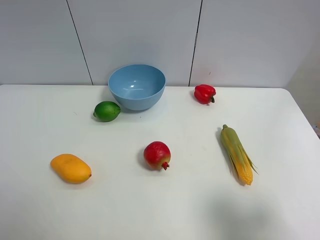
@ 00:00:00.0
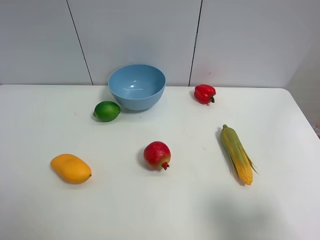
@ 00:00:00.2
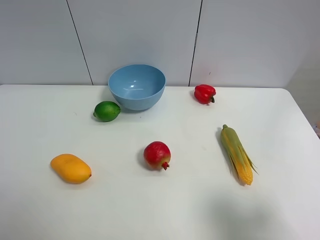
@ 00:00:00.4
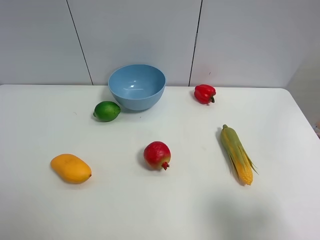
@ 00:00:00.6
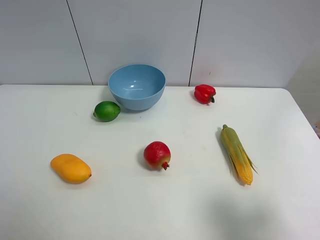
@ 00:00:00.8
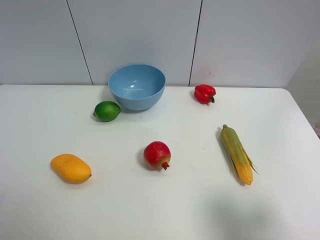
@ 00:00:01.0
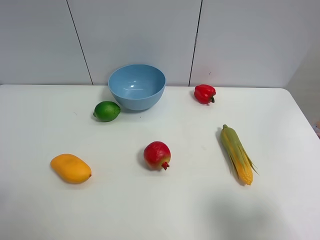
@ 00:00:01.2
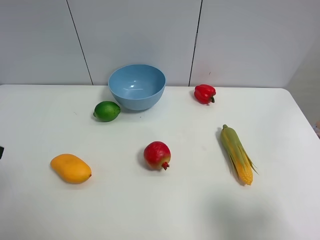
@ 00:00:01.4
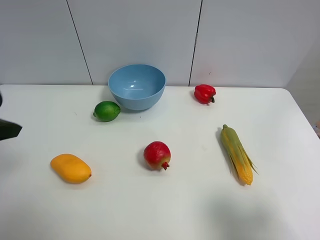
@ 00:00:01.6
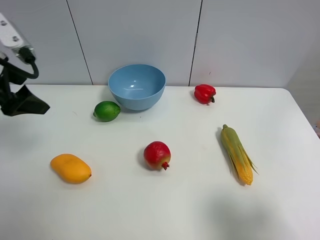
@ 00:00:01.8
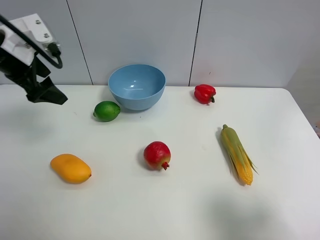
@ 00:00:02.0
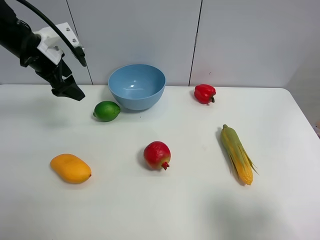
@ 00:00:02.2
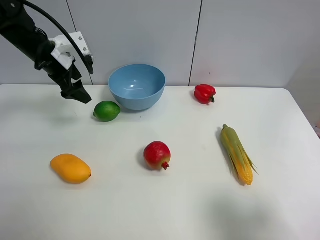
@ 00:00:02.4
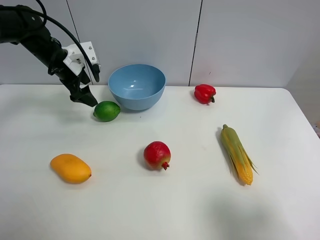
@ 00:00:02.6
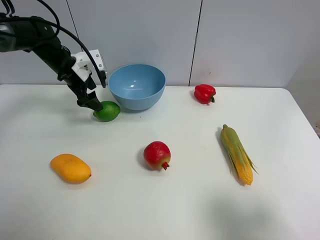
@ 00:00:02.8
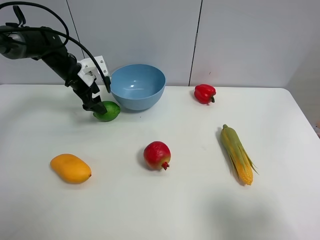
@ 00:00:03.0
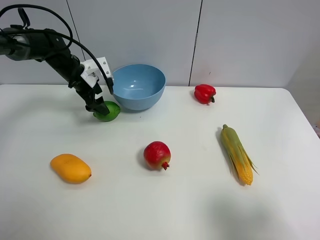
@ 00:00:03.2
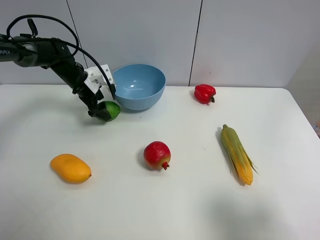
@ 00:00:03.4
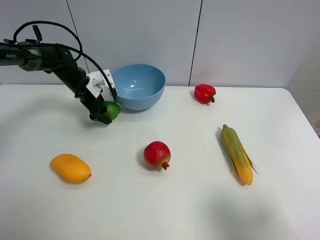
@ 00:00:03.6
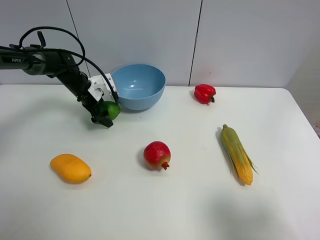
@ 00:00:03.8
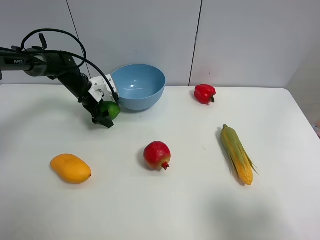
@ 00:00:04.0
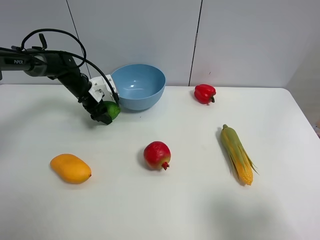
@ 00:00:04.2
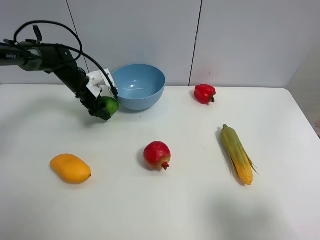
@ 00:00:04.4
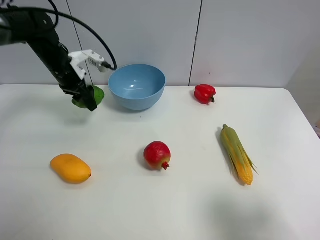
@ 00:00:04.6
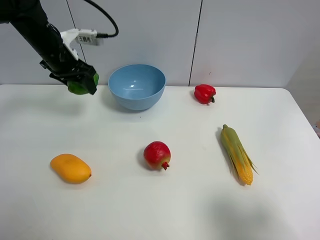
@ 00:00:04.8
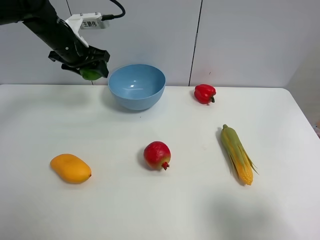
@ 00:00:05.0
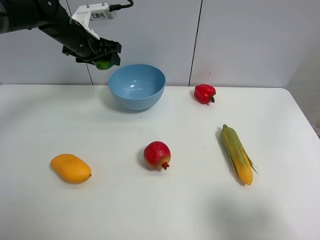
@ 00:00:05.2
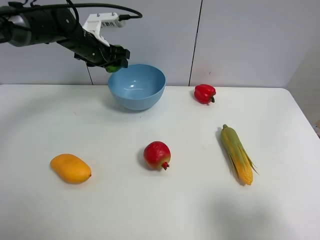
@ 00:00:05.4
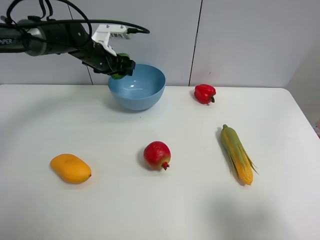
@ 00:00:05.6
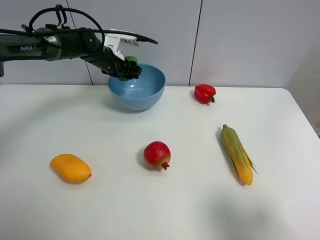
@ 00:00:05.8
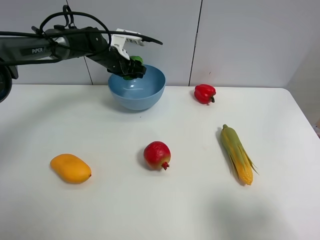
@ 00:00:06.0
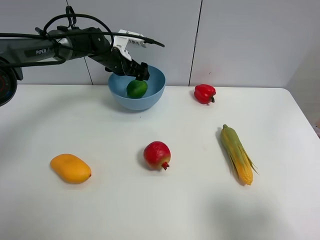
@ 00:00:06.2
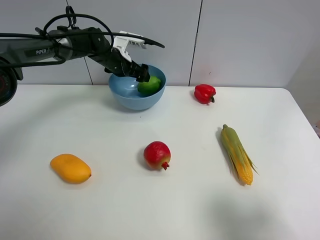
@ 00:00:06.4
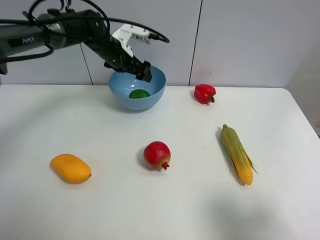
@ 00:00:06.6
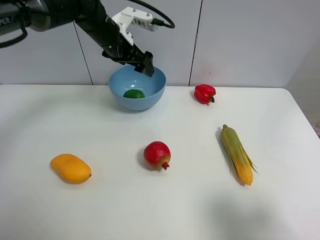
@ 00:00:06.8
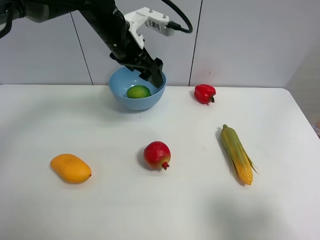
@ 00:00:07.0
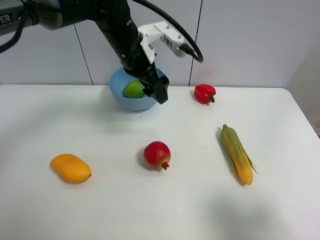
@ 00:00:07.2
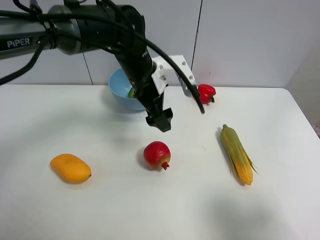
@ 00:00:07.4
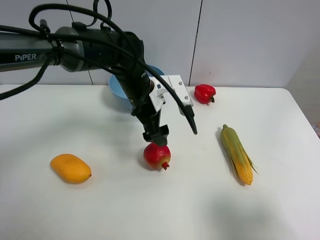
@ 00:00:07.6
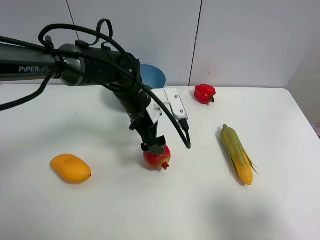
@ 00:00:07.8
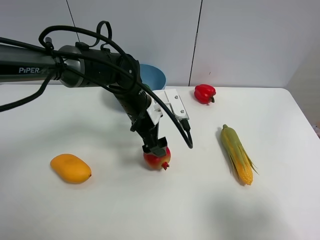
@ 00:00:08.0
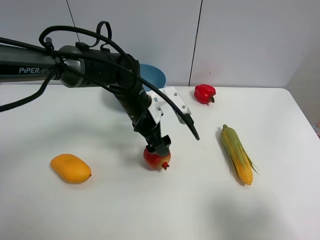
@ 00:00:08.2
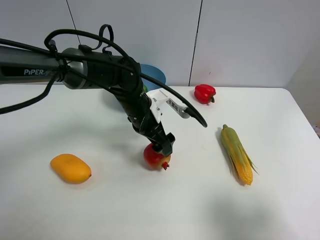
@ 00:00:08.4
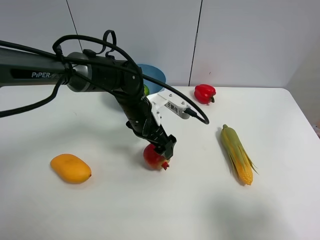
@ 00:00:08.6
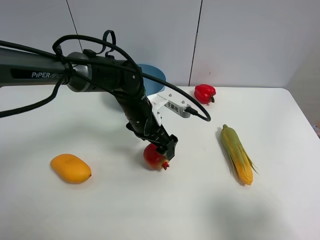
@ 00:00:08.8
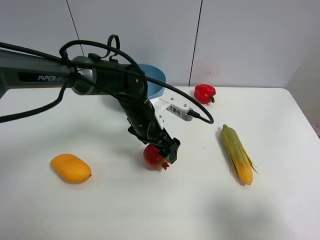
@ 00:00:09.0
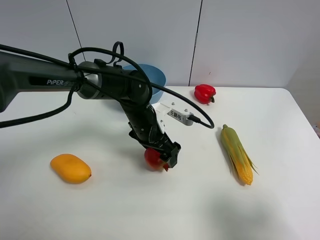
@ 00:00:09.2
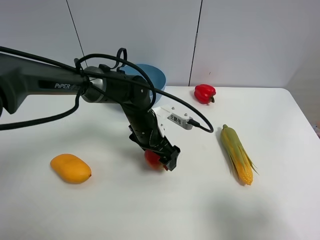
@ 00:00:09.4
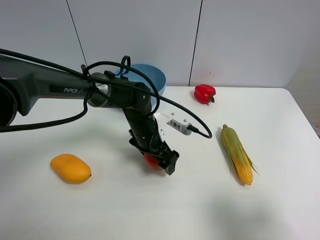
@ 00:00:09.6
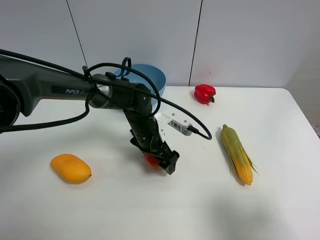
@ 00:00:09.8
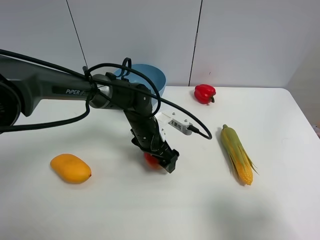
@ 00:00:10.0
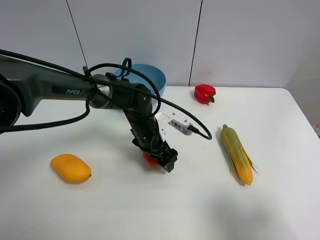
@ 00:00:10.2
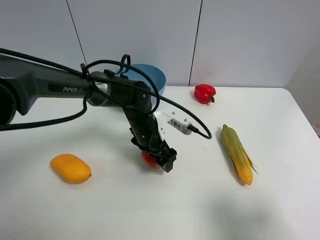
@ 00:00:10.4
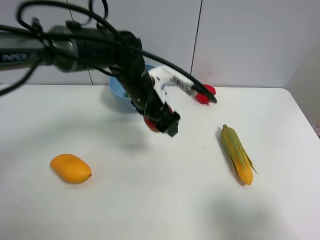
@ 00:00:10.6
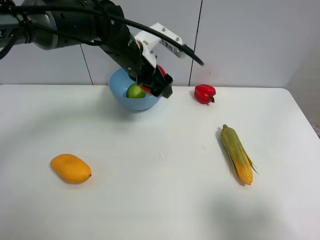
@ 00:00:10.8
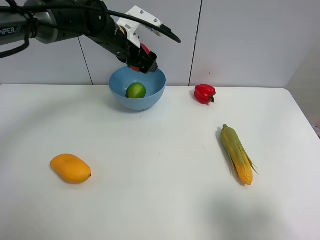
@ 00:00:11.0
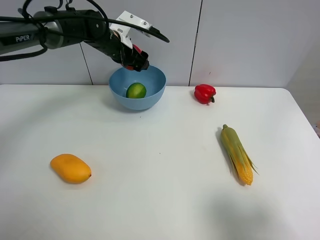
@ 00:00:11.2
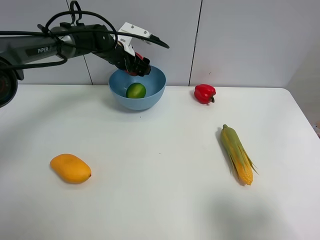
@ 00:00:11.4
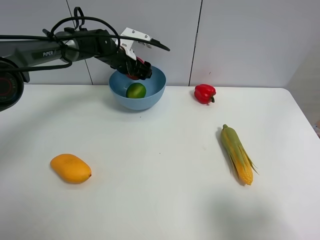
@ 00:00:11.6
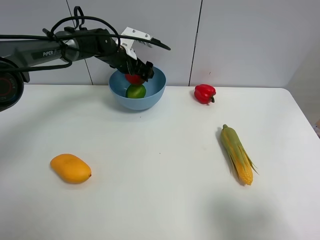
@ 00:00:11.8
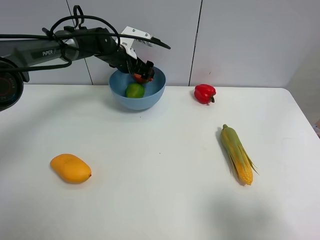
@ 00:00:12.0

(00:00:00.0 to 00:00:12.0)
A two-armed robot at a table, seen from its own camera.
Task of the whole recording: Put the three fruits on the table into a bowl.
Step, 00:00:00.0 - 00:00:04.2: Grasp the green lemon with left gripper.
Step, 00:00:04.4 - 00:00:06.2: Place the green lemon in the blue bowl with left gripper.
Step, 00:00:06.4 - 00:00:10.2: Grasp the pomegranate with left gripper.
00:00:00.0 - 00:00:01.6: The left gripper heads forward, covering some 20 cm.
00:00:01.6 - 00:00:03.0: The left gripper travels forward and downward by approximately 30 cm.
00:00:03.0 - 00:00:04.4: The left gripper closes up.
00:00:04.4 - 00:00:06.0: The left gripper heads to the right and upward, covering approximately 10 cm.
00:00:06.0 - 00:00:07.6: The left gripper moves backward and to the right, approximately 20 cm, and opens up.
00:00:07.6 - 00:00:09.0: The left gripper shifts some 5 cm downward.
00:00:09.0 - 00:00:10.4: The left gripper closes its fingers.
00:00:10.4 - 00:00:12.0: The left gripper moves forward and to the left, some 20 cm, and opens.

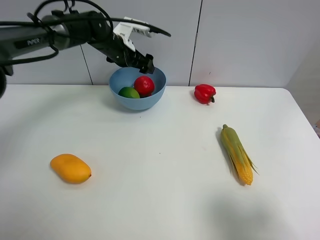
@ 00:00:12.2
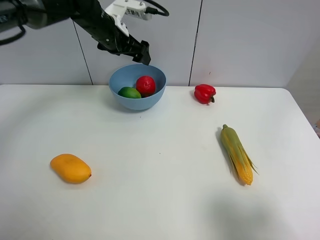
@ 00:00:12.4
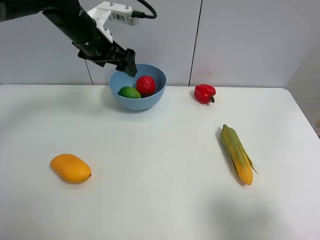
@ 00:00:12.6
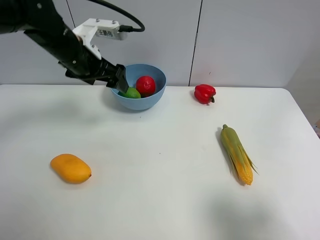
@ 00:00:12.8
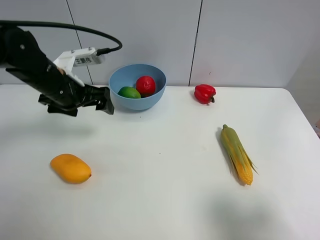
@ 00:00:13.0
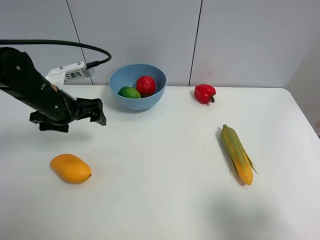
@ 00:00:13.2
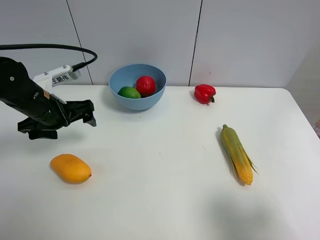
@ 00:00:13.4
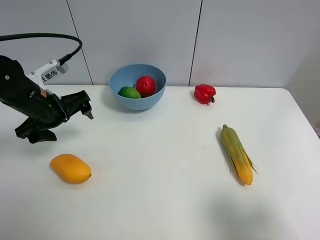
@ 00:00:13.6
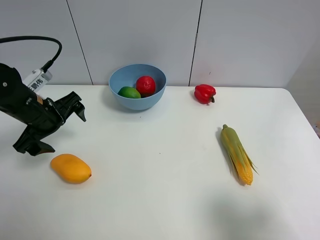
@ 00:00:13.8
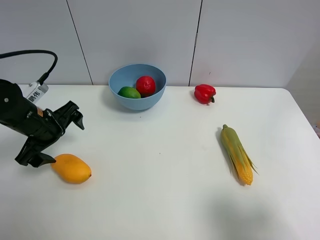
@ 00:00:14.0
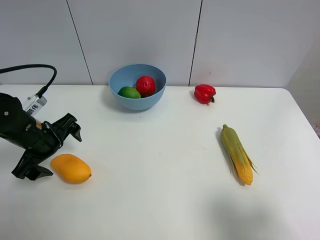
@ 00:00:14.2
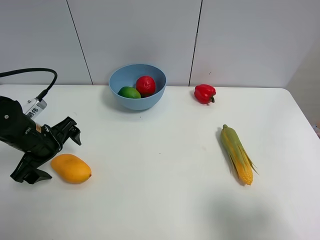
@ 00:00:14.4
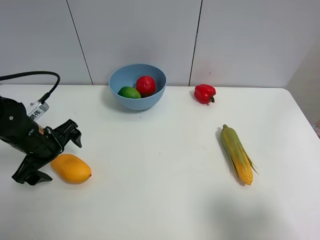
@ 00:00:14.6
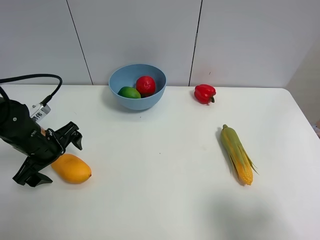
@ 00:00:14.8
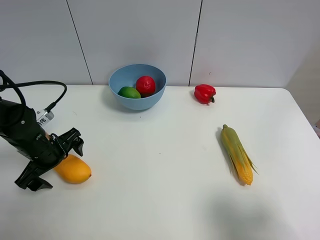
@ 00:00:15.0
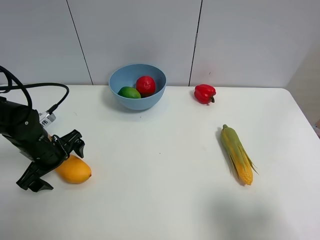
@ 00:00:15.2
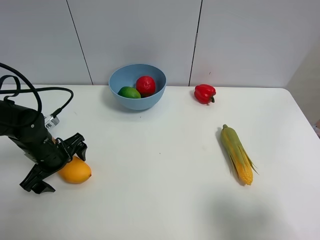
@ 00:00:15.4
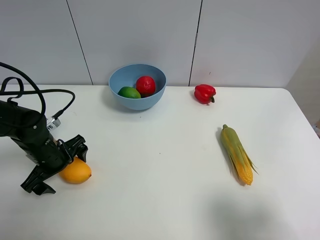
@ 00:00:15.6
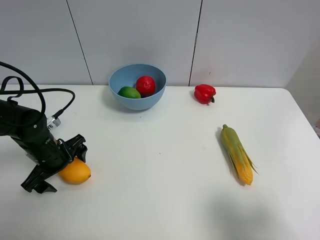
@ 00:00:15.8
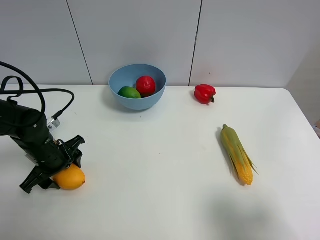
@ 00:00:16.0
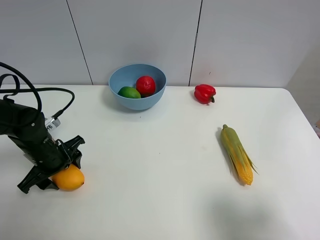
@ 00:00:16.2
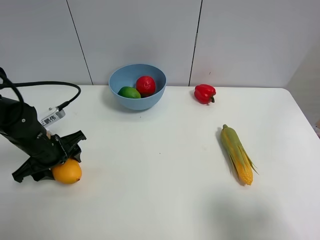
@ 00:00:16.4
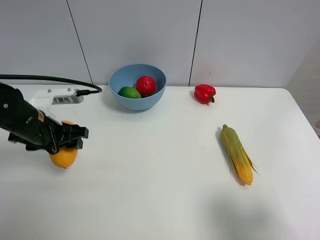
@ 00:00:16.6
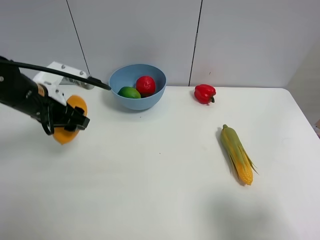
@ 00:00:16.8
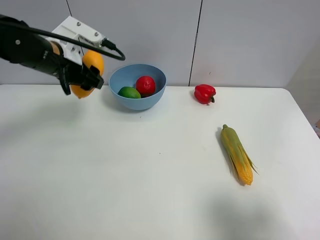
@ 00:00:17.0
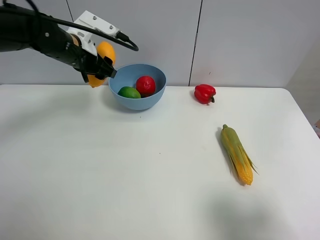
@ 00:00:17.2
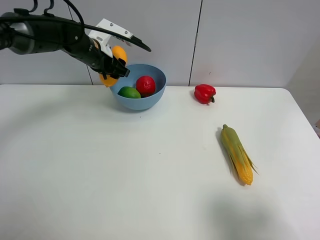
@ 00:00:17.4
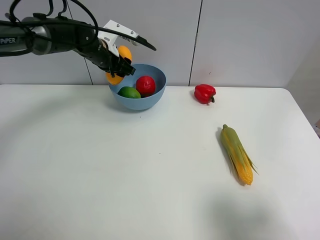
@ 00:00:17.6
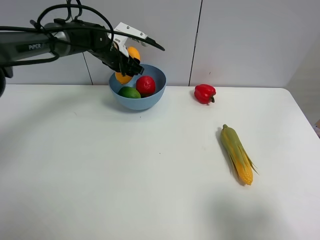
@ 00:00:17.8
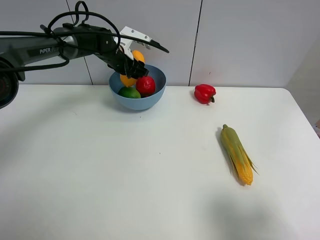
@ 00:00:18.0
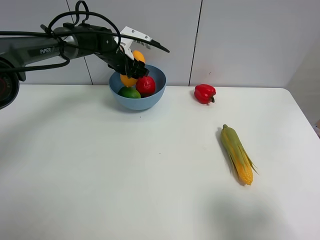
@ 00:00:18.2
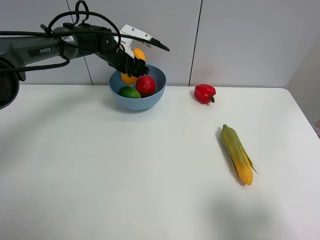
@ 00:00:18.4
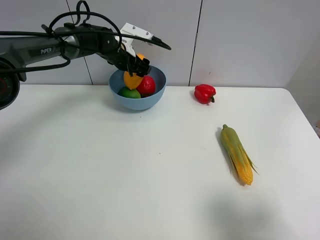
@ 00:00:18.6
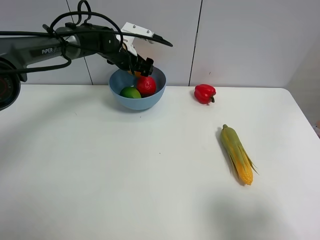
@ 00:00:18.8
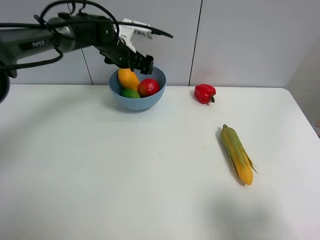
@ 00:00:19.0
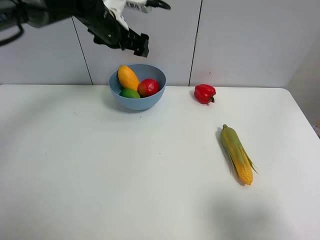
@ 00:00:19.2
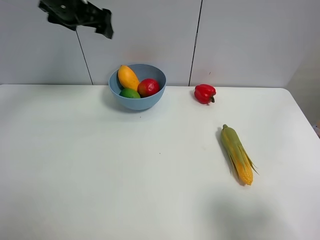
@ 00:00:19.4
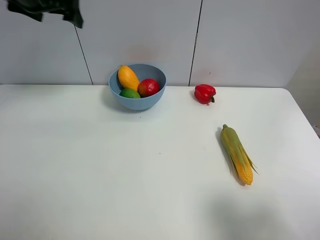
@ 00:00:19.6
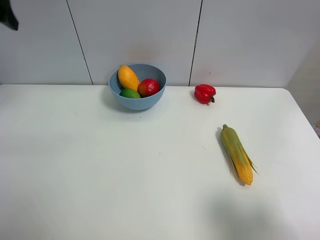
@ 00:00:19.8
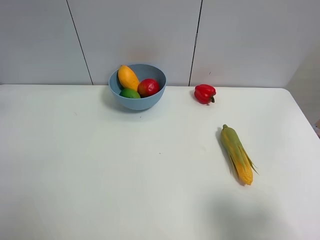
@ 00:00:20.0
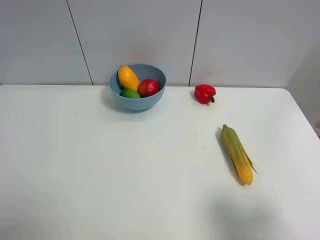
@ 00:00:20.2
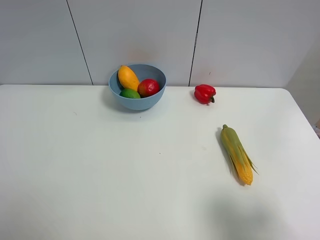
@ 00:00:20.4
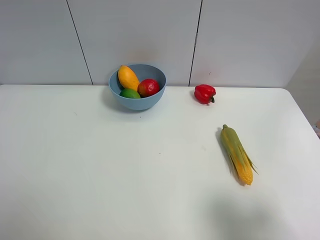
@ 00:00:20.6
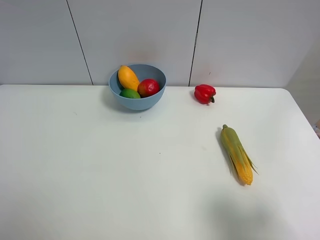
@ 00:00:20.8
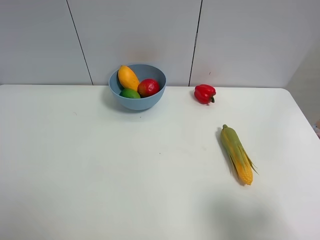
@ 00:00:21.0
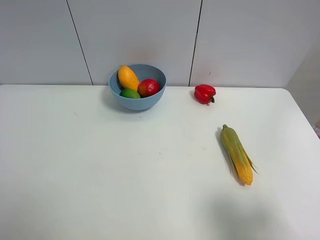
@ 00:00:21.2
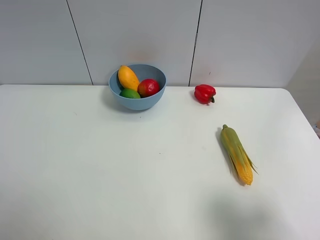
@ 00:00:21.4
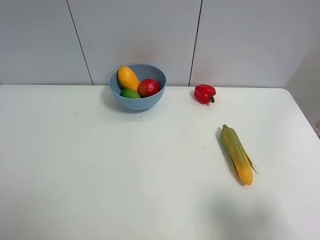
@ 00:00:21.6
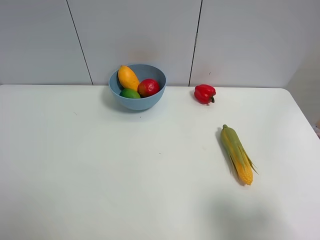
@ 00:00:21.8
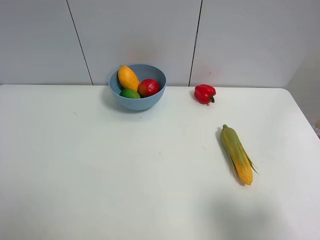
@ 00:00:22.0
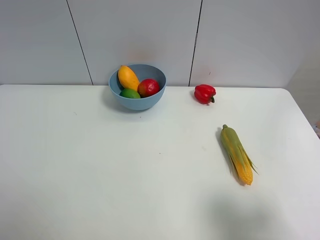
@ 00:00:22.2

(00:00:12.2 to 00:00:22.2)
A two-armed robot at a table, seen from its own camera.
Task of the whole recording: Put the three fruits on the table into a bowl.
Step, 00:00:12.4 - 00:00:16.0: Grasp the mango with left gripper.
Step, 00:00:16.2 - 00:00:18.8: Place the mango in the blue bowl with left gripper.
00:00:12.2 - 00:00:13.6: The left gripper is displaced backward and to the left by roughly 25 cm.
00:00:13.6 - 00:00:15.0: The left gripper travels downward by approximately 10 cm.
00:00:15.0 - 00:00:16.4: The left gripper closes up.
00:00:16.4 - 00:00:18.0: The left gripper heads forward and to the right, covering approximately 30 cm.
00:00:18.0 - 00:00:19.4: The left gripper is displaced upward and to the left by about 20 cm, and opens up.
00:00:19.4 - 00:00:20.8: The left gripper travels backward by approximately 40 cm.
